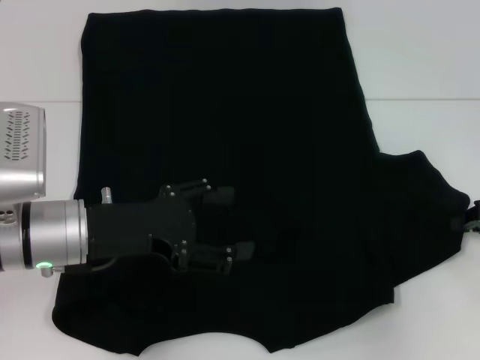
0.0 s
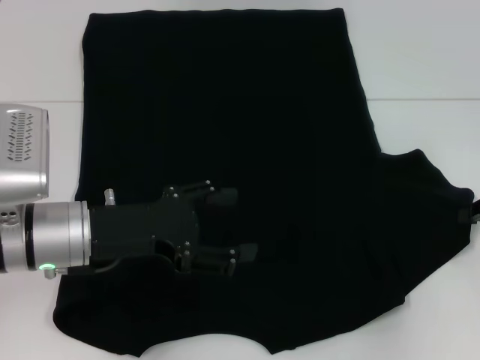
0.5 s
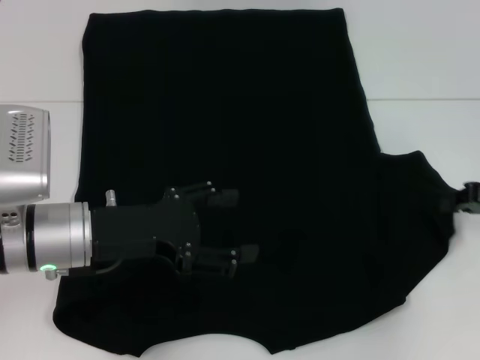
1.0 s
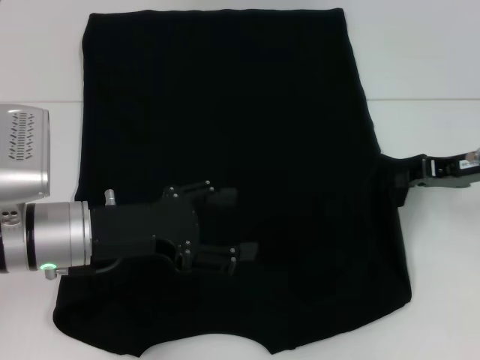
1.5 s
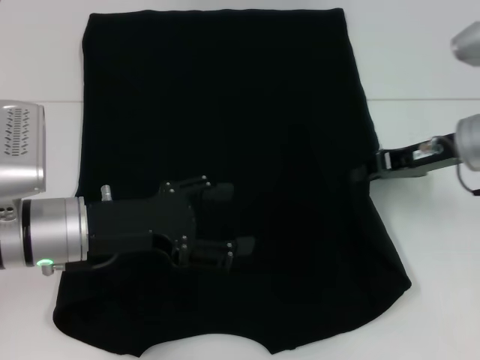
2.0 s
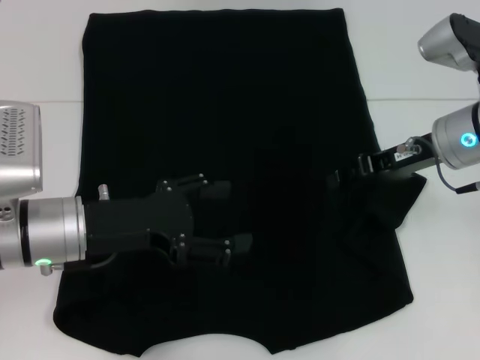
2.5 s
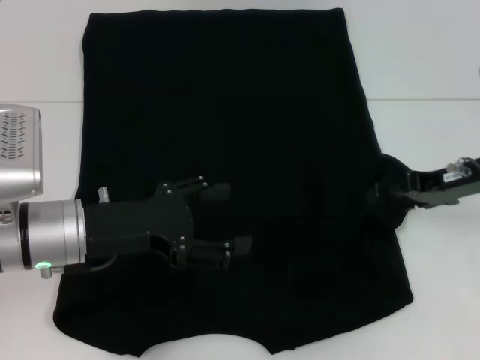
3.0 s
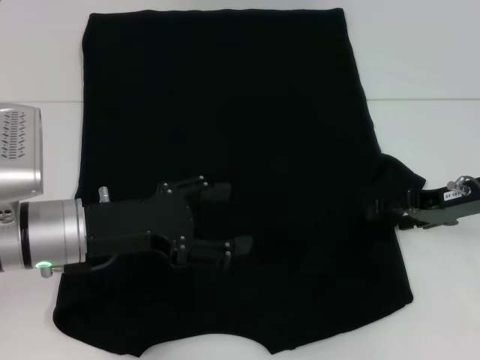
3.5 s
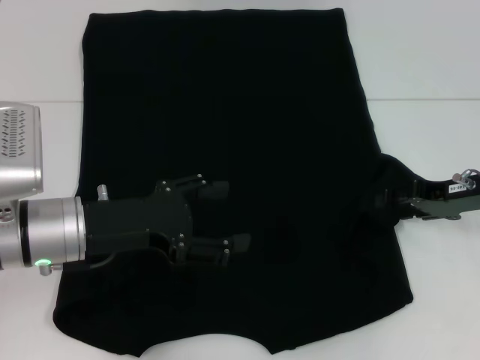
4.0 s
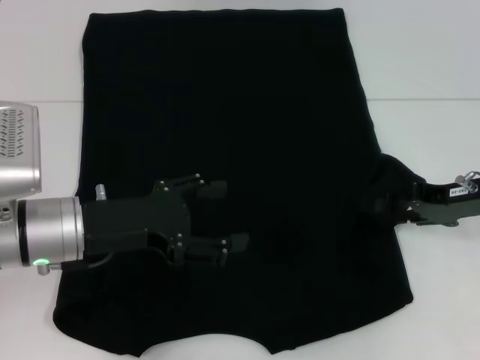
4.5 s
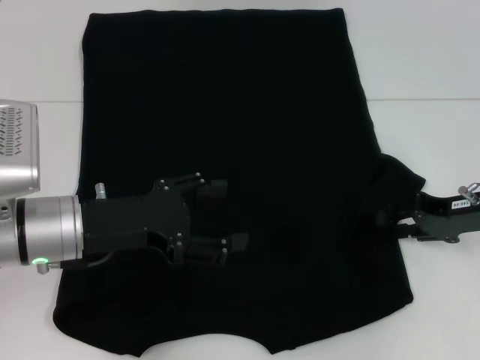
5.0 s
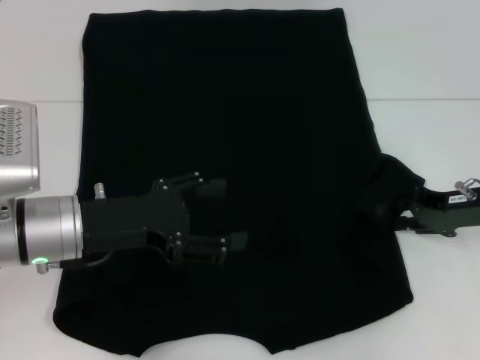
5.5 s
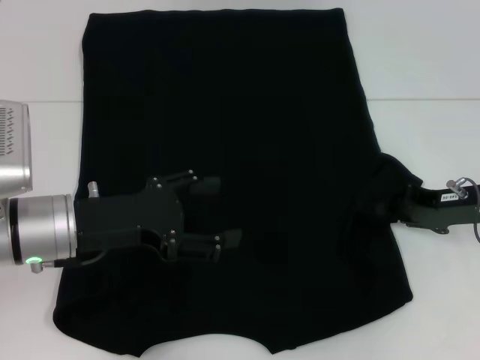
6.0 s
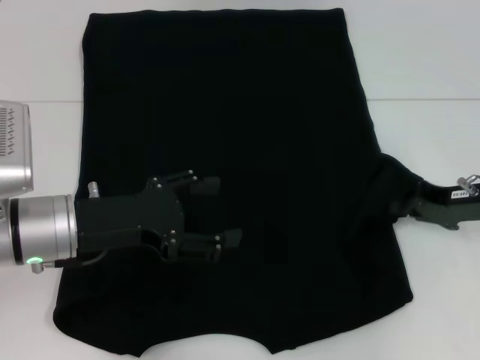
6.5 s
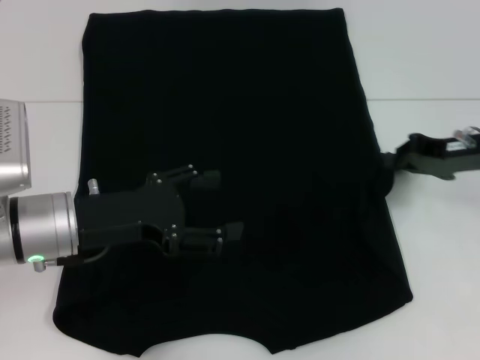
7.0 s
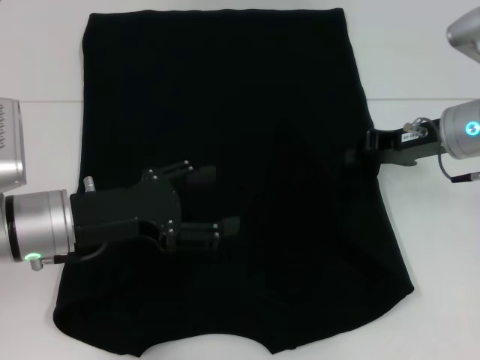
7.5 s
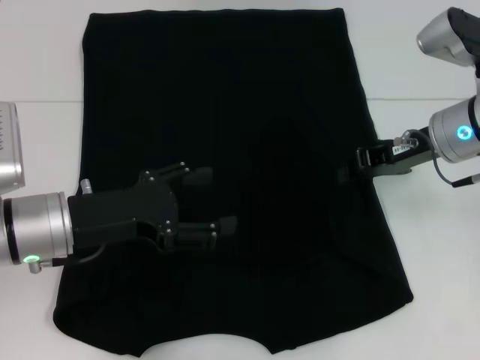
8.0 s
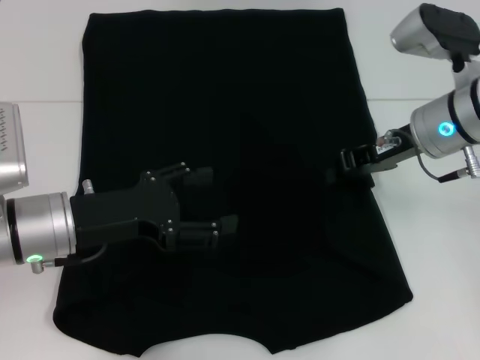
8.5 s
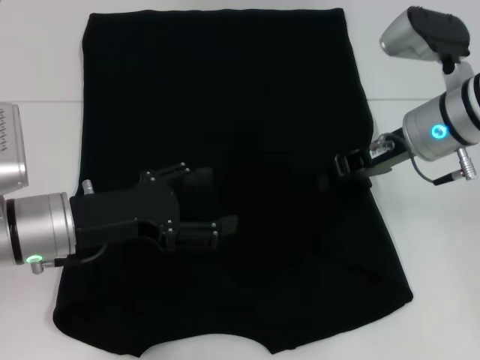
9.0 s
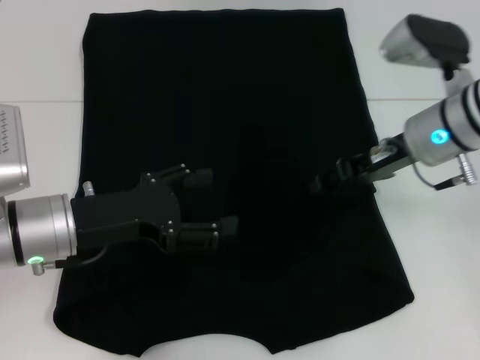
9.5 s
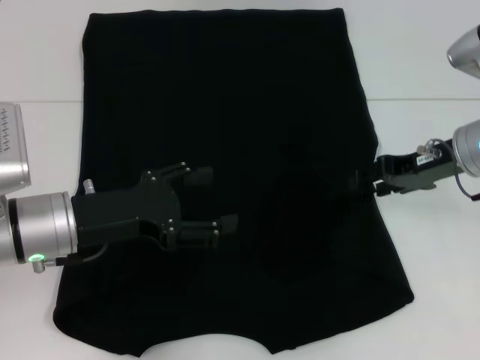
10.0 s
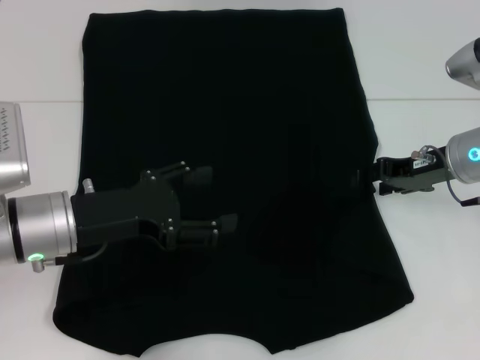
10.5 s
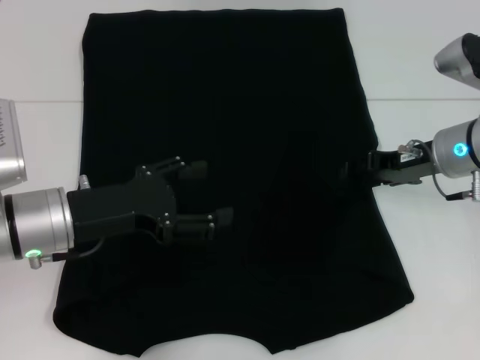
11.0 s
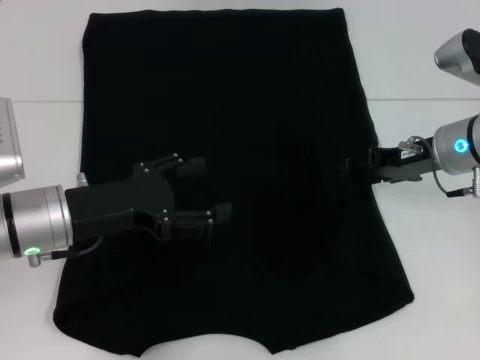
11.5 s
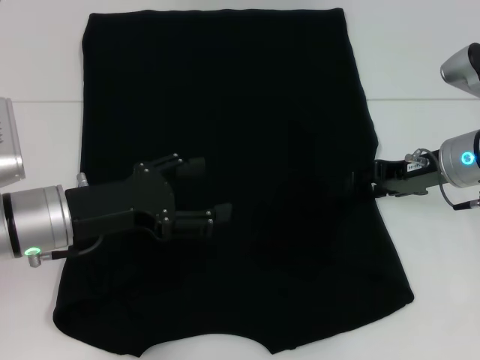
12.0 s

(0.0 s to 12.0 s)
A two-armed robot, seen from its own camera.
0.0 s - 2.0 s: The right gripper goes some 15 cm to the left, forward and upward.
2.0 s - 4.0 s: The right gripper changes place by approximately 5 cm, and opens up.
4.0 s - 6.0 s: The grippers stay close to where they were, moving slightly.
6.0 s - 8.0 s: The right gripper is displaced upward and to the left by some 10 cm, and closes its fingers.
8.0 s - 10.0 s: The right gripper opens.
10.0 s - 12.0 s: The grippers stay close to where they were, moving slightly.

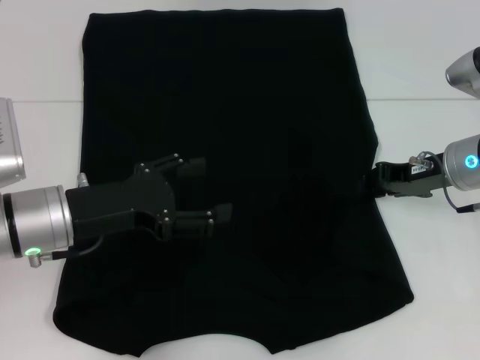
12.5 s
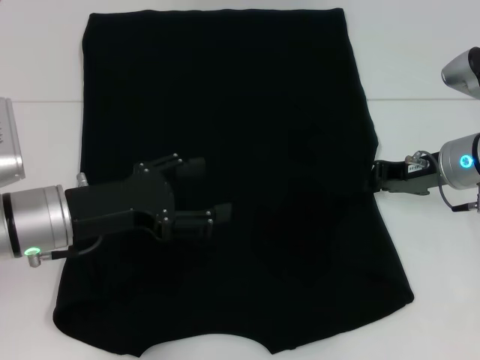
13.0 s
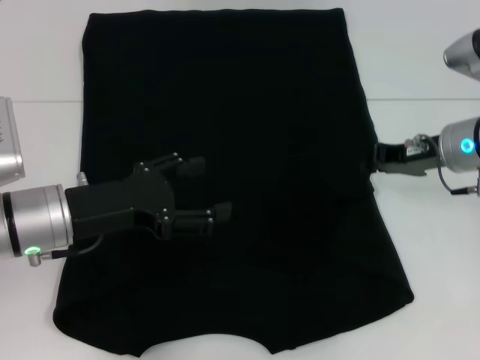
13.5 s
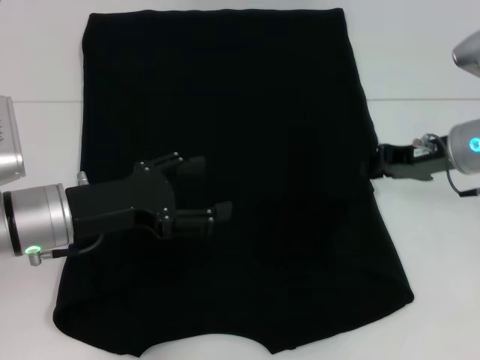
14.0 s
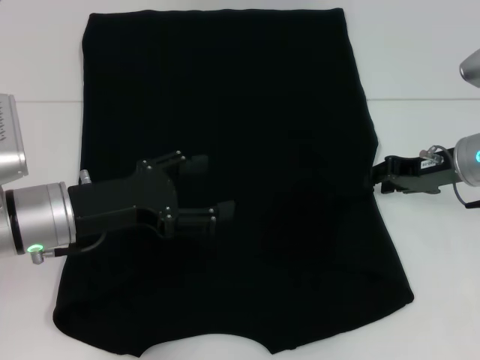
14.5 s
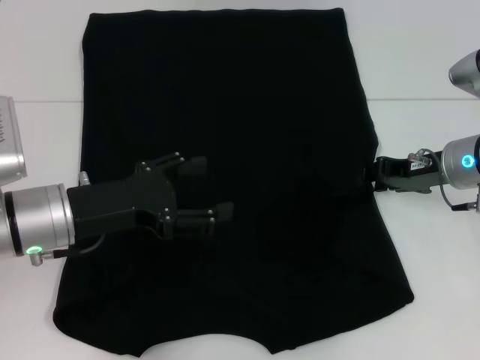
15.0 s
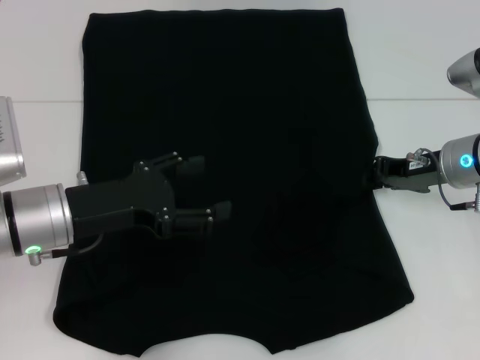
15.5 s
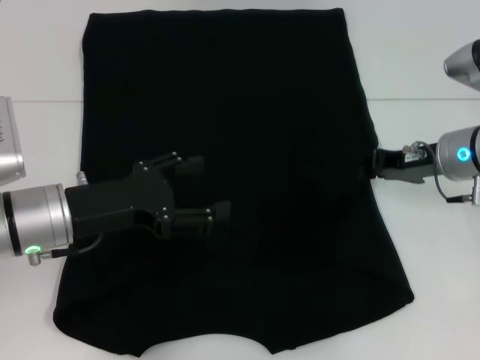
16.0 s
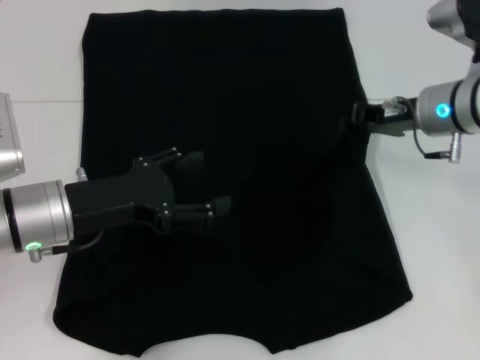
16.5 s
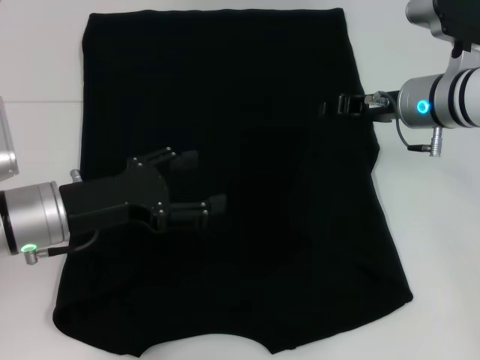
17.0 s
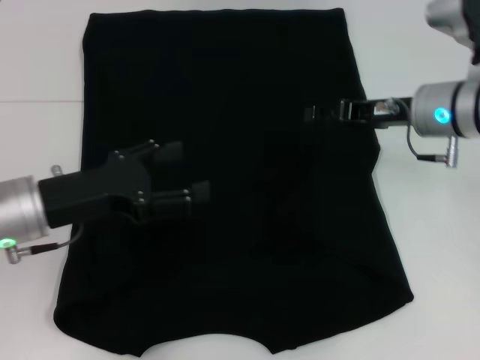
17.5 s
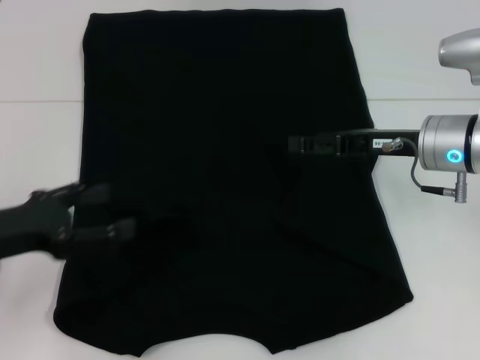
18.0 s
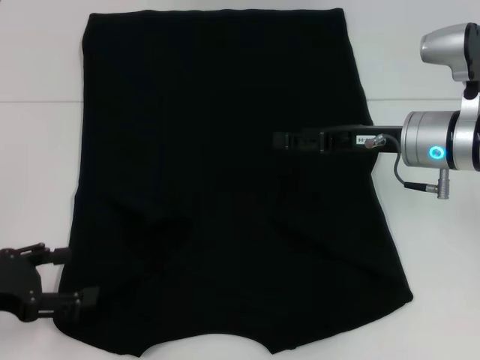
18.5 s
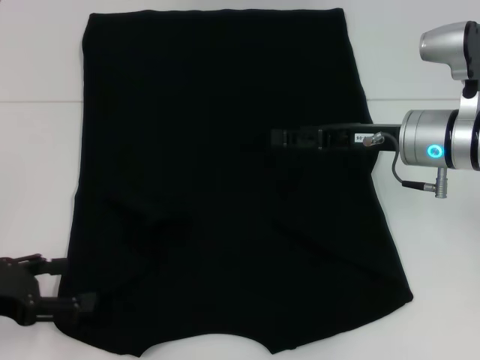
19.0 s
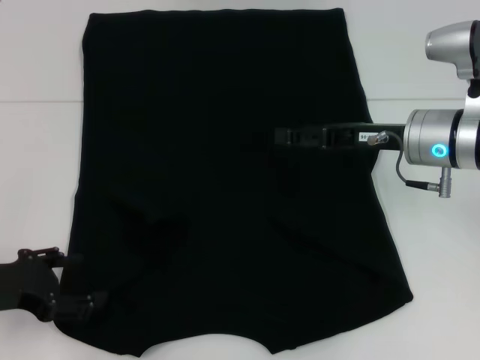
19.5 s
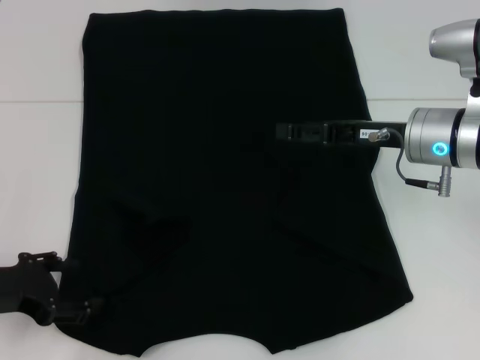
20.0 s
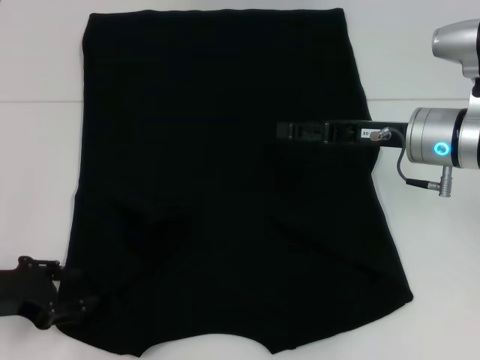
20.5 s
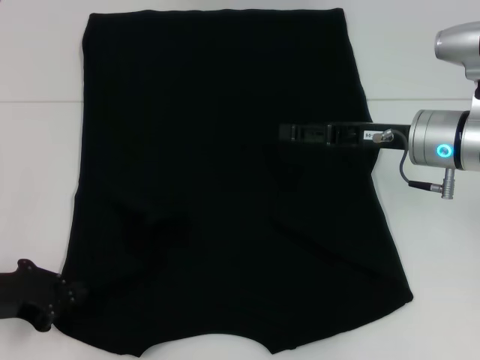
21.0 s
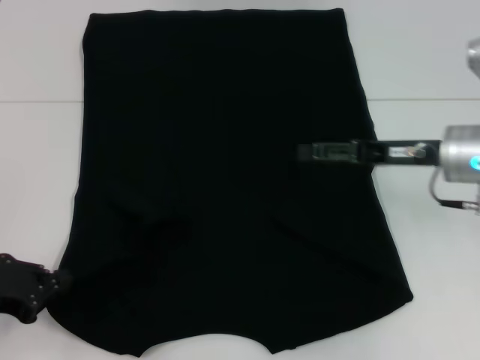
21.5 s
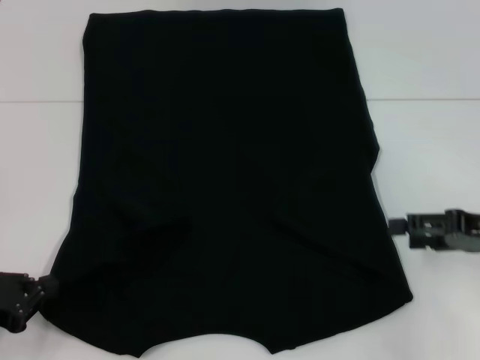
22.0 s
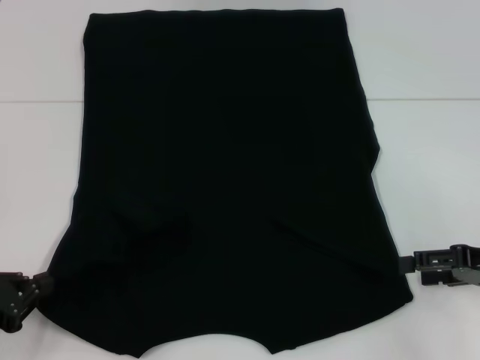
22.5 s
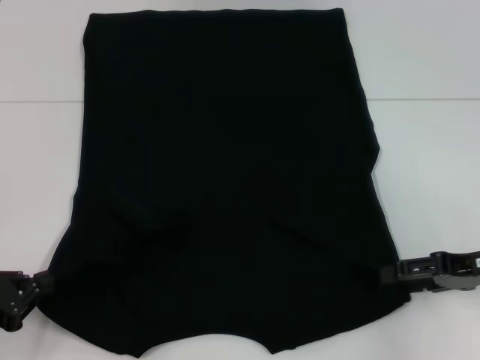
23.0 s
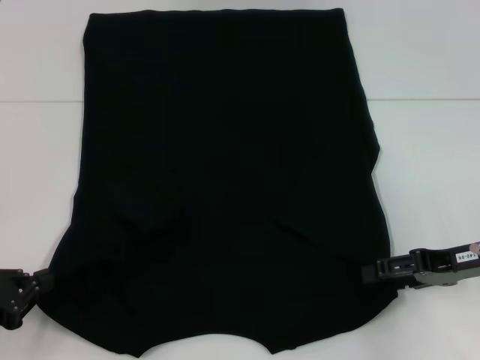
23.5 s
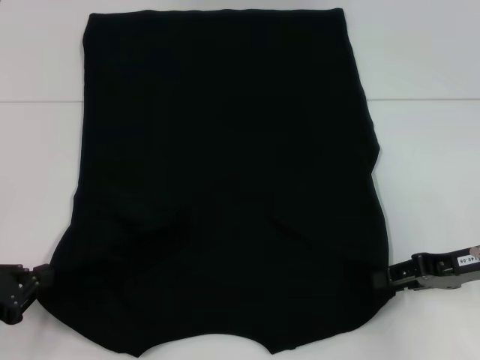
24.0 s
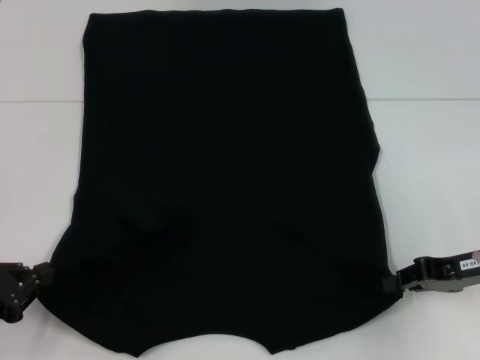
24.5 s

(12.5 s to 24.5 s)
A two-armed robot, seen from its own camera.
Step, 13.5 s - 22.0 s: Grab the bottom left corner with your left hand.
12.5 s - 14.5 s: The right gripper closes, then opens again.
14.5 s - 16.5 s: The right gripper ends up about 5 cm from where it was.
16.5 s - 18.5 s: The left gripper goes roughly 15 cm to the left and backward, while the right gripper opens its fingers.
18.5 s - 20.5 s: The grippers make only small movements.
20.5 s - 22.5 s: The right gripper goes approximately 15 cm to the right and backward; the left gripper moves some 5 cm, and closes.
22.5 s - 24.5 s: The right gripper closes its fingers.

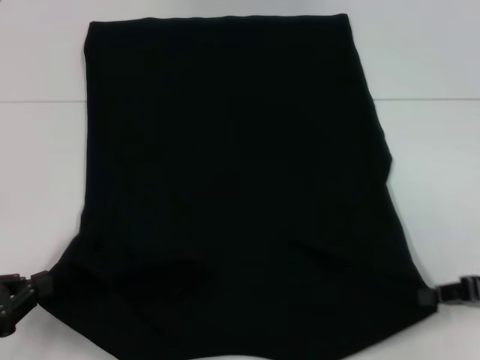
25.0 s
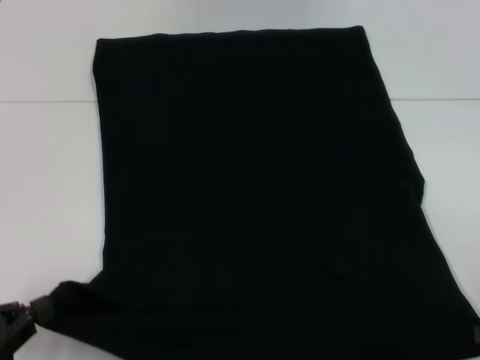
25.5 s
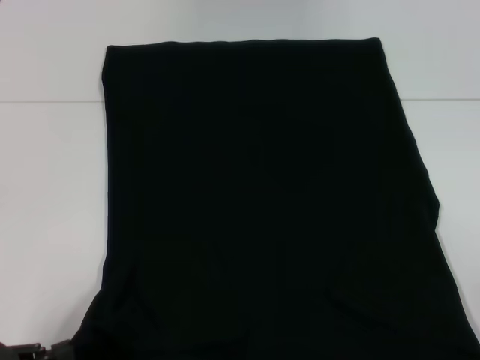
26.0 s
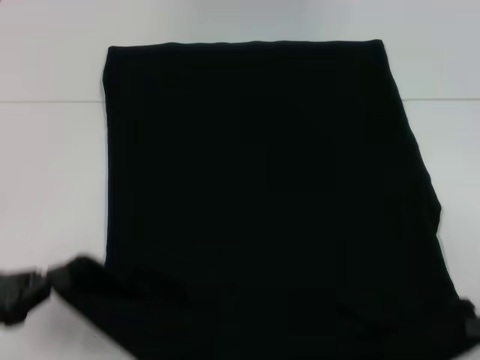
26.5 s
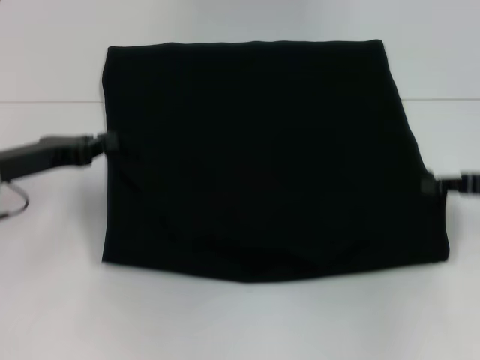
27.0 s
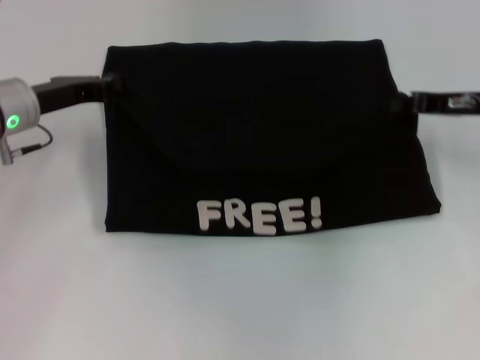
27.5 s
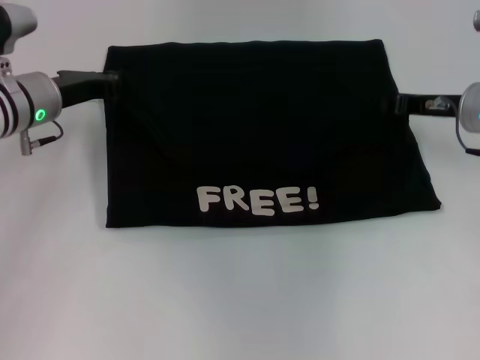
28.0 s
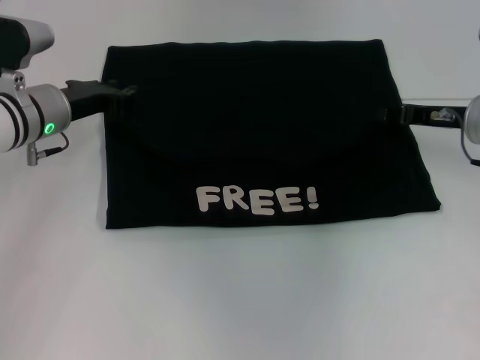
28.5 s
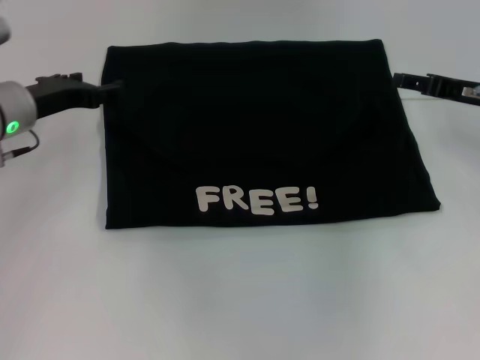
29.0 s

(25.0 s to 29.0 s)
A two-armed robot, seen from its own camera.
Step, 25.5 s - 28.5 s: Fold the clothes with your left hand.
Step, 25.5 s - 28.5 s: Fold the clothes with your right hand.
25.0 s - 27.0 s: The right gripper goes approximately 5 cm forward; the left gripper shifts approximately 15 cm forward.
27.0 s - 29.0 s: The two grippers go some 10 cm forward. The left gripper opens its fingers; the right gripper opens.
